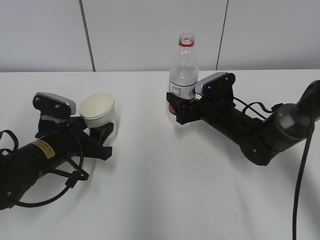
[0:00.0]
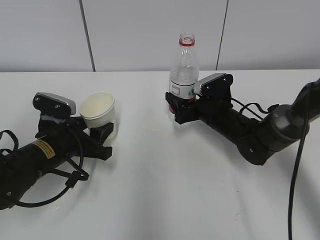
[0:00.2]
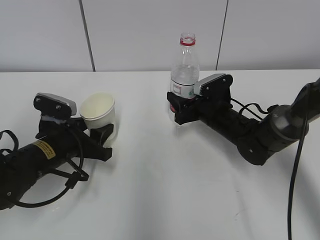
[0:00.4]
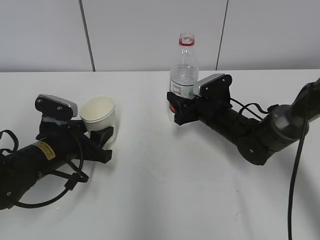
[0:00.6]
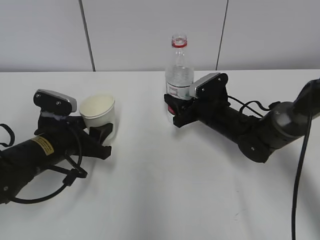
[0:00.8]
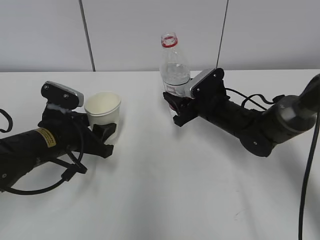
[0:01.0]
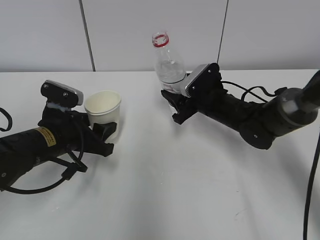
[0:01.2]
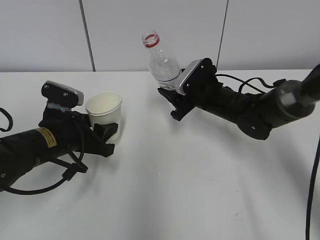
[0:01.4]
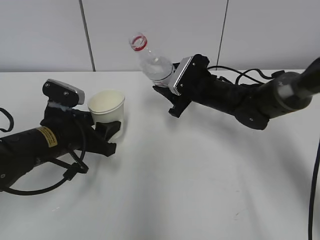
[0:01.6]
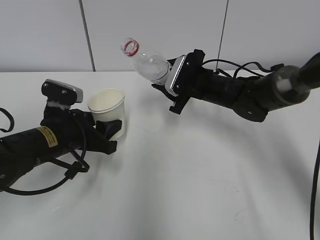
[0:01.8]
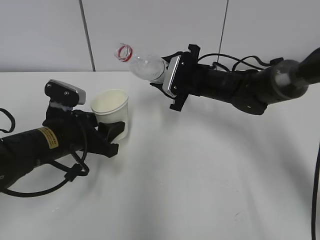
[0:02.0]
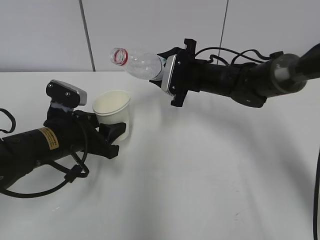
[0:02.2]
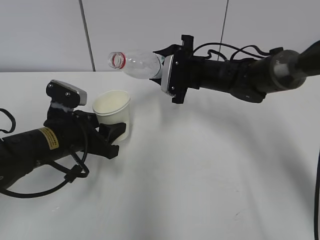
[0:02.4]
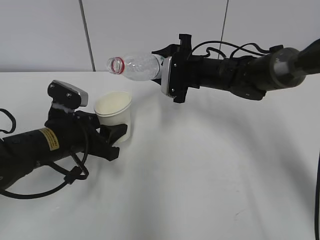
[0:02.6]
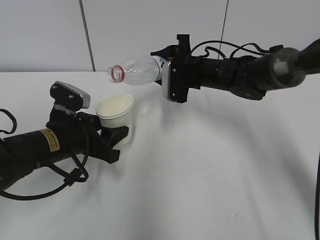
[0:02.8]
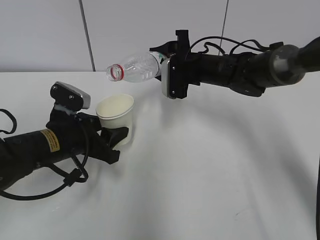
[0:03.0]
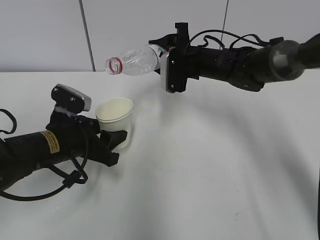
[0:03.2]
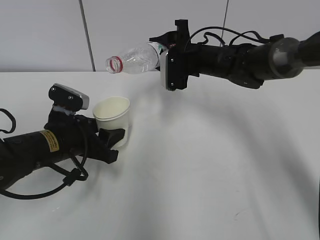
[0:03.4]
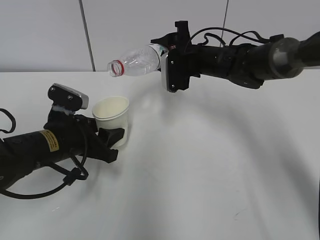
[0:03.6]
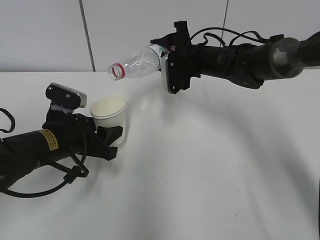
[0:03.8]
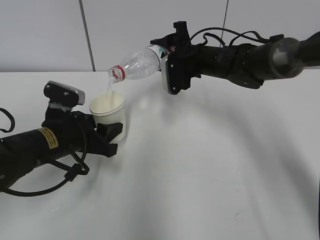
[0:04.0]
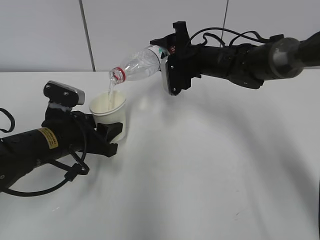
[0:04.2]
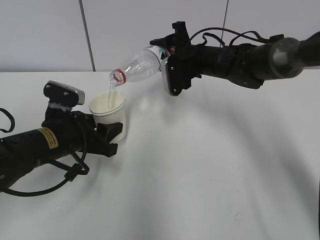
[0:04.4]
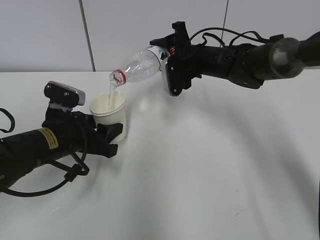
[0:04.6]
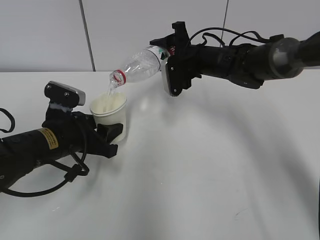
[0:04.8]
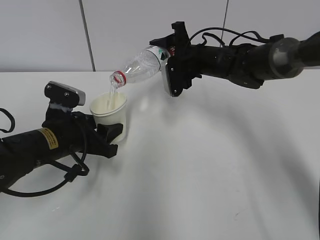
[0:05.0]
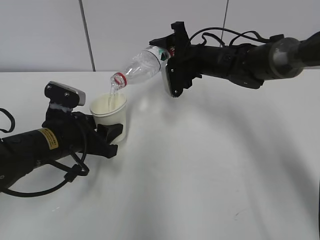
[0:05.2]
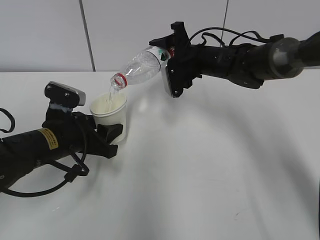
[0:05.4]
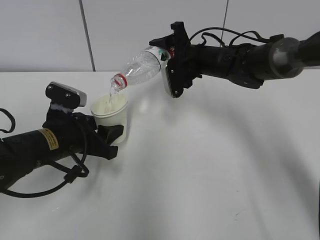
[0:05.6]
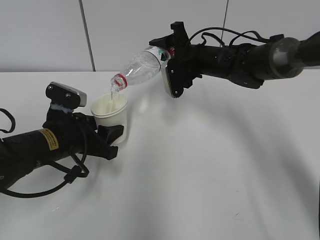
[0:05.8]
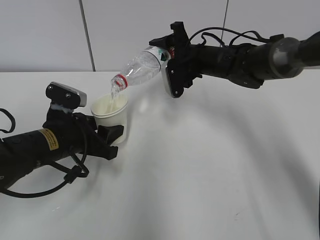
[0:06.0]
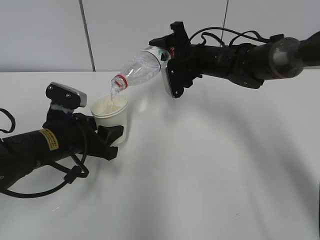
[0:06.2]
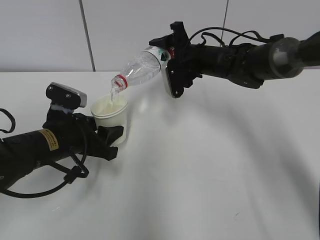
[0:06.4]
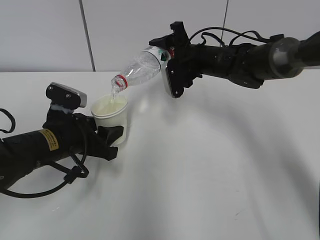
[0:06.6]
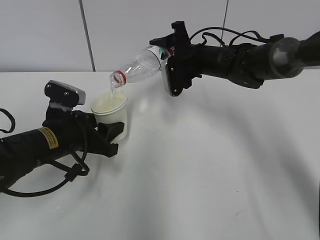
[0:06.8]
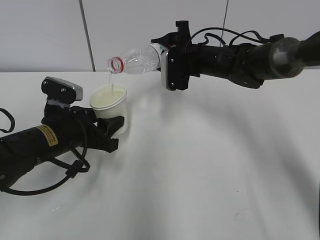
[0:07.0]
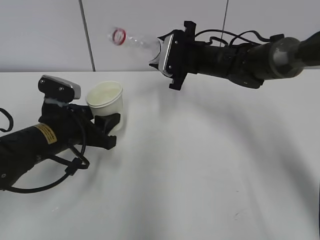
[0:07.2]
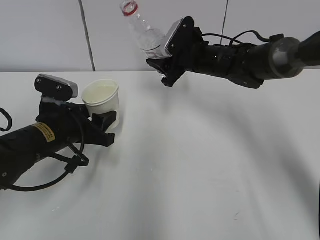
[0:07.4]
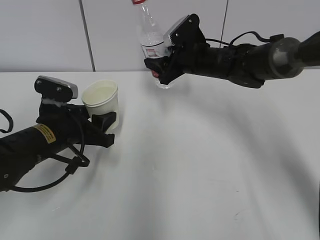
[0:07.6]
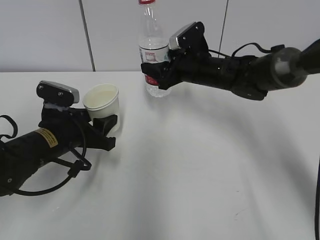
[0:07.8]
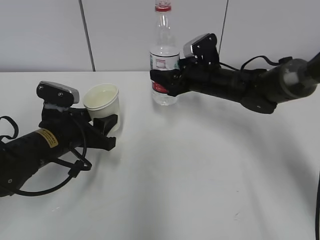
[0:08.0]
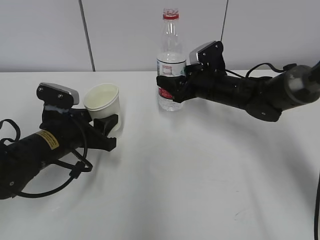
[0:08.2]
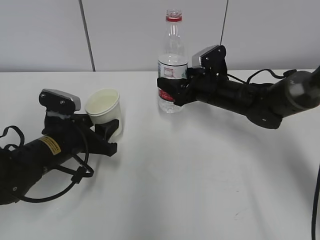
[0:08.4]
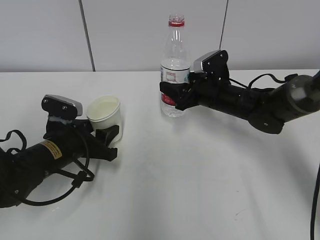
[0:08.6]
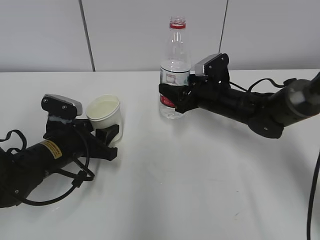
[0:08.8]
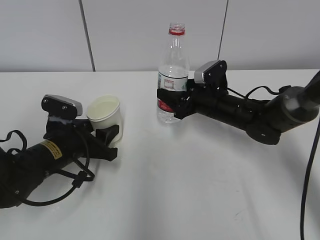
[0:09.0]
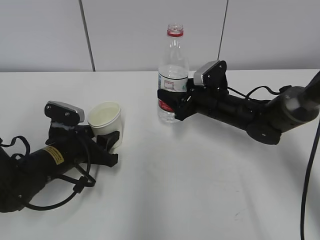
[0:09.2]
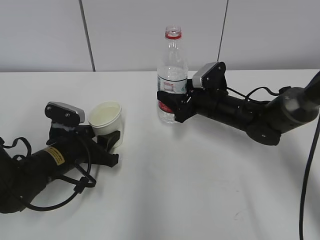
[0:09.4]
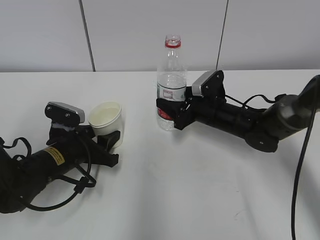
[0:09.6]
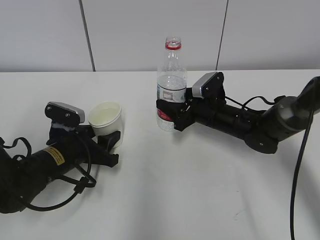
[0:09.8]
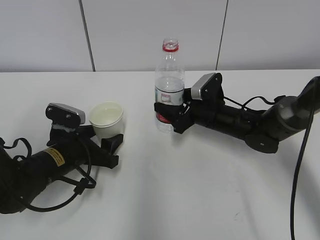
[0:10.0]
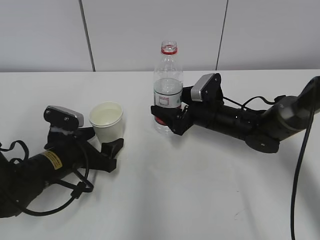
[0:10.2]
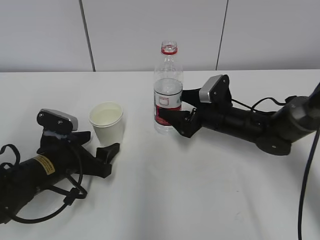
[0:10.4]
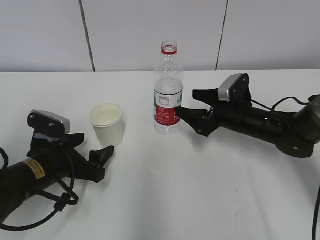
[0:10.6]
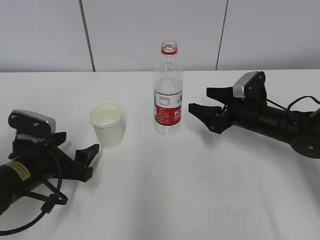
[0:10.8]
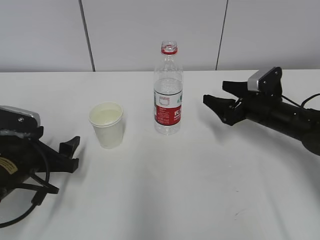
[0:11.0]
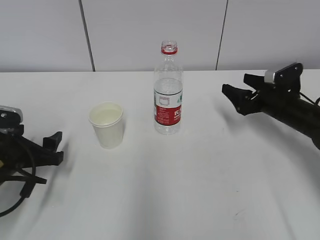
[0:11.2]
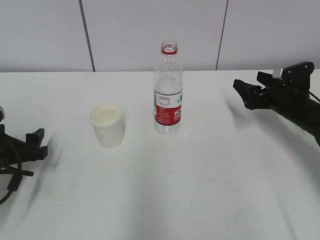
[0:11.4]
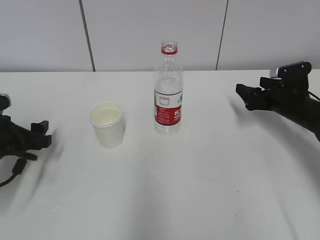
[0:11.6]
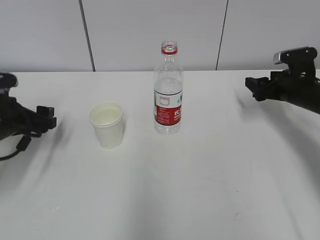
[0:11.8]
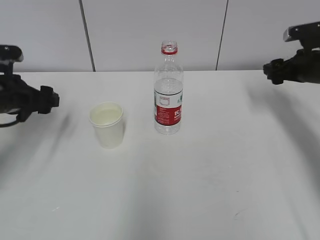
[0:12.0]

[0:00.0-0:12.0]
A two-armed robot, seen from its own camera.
Step, 0:00.0 to 0:01.8: Lift the paper cup with the left hand.
Step, 0:02.0 to 0:04.4: Fill water with the left hand.
Step, 0:02.0 to 0:04.4: Pour water with the right hand.
Step, 0:05.2 to 0:06.8: Place the paper cup with the left hand.
0:00.0 to 0:01.6: The right gripper shifts by roughly 5 cm, and closes its fingers.
0:01.6 to 0:03.0: The right gripper ends up about 5 cm from where it was.
0:03.0 to 0:06.0: The grippers move only a little.
0:07.6 to 0:09.0: The right gripper moves downward and backward, approximately 10 cm.
0:09.0 to 0:10.4: The left gripper opens up, while the right gripper opens its fingers.
0:10.4 to 0:12.0: The right gripper moves to the right and upward, about 20 cm. Meanwhile the left gripper travels upward, to the left and forward by approximately 15 cm.

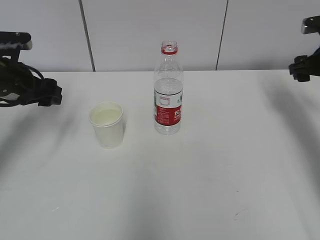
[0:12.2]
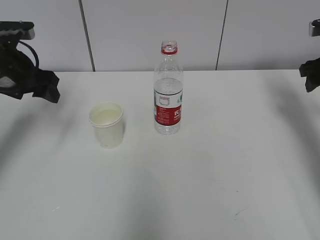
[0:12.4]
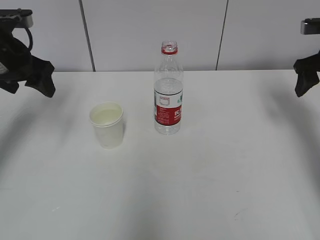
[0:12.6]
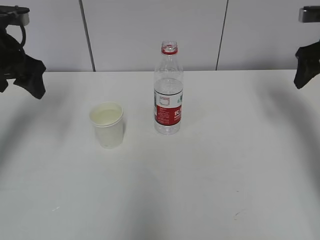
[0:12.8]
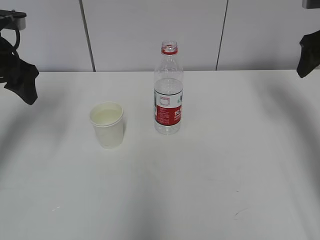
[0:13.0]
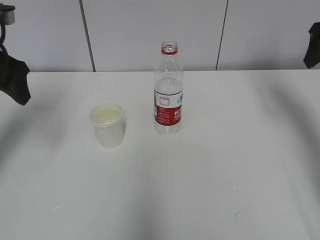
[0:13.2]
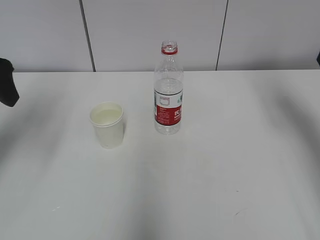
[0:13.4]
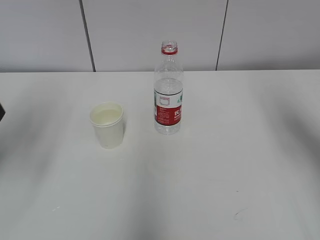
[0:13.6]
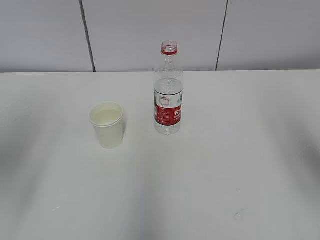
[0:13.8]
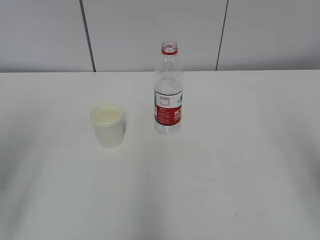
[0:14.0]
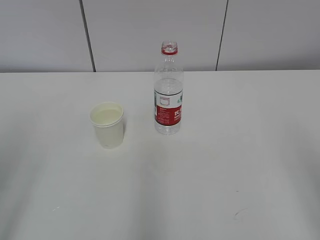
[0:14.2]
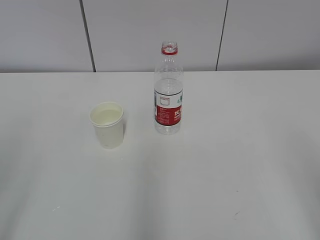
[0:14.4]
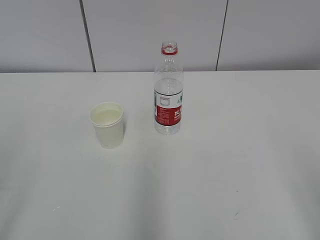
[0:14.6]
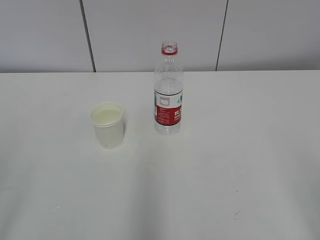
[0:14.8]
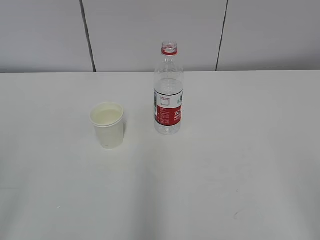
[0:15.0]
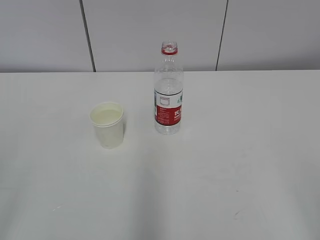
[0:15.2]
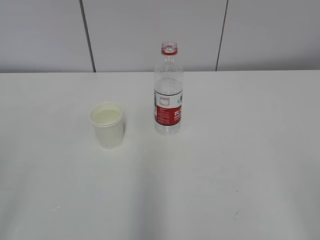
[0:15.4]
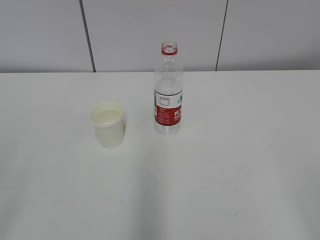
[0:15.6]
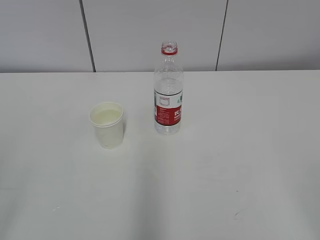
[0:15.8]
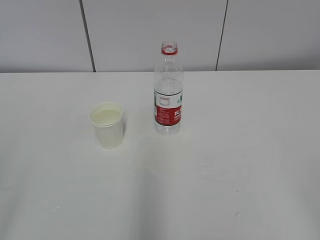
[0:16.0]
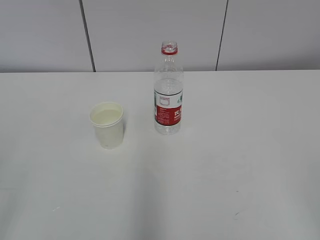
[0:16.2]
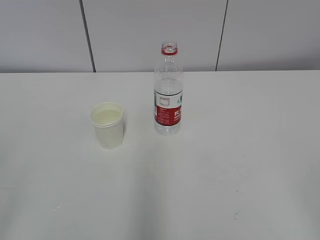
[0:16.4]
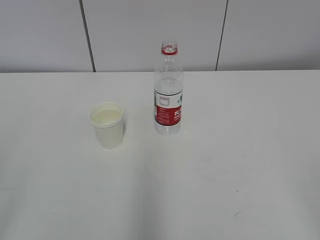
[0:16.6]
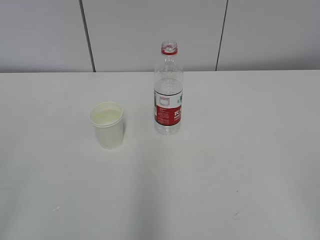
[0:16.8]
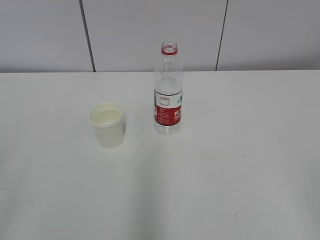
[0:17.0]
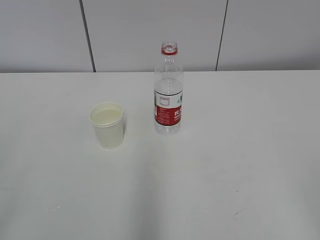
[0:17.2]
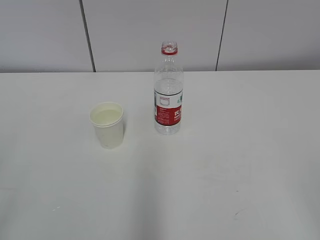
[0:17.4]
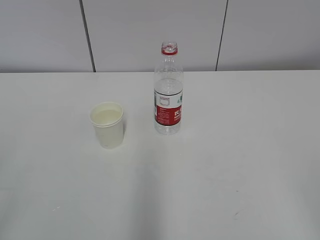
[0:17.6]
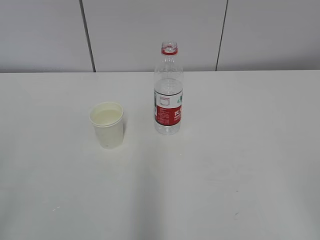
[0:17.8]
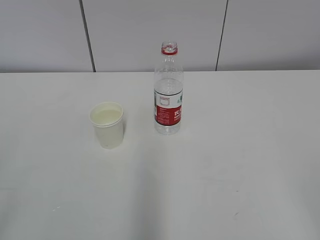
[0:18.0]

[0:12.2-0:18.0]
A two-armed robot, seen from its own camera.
0:12.2 to 0:13.6: Both grippers travel together backward and upward, about 20 cm.
0:13.6 to 0:15.0: The two grippers go approximately 25 cm backward.
0:16.6 to 0:18.0: The two grippers keep their place.

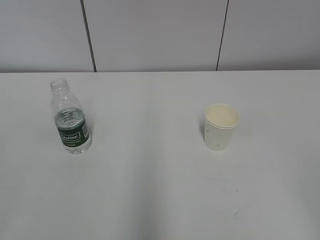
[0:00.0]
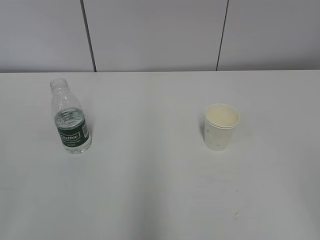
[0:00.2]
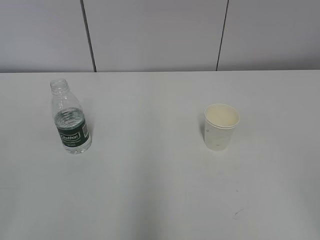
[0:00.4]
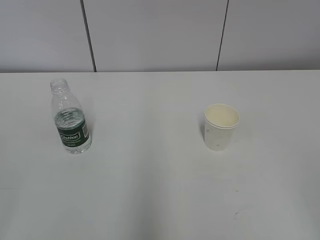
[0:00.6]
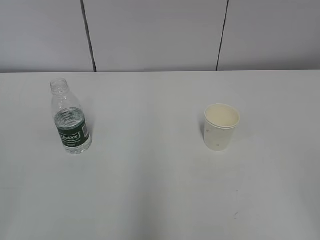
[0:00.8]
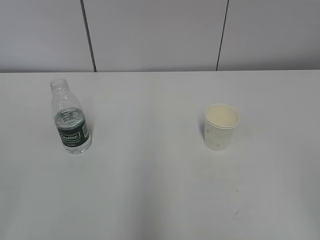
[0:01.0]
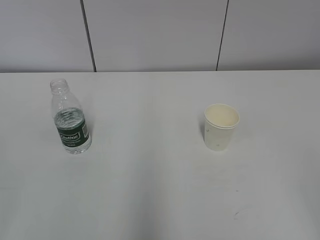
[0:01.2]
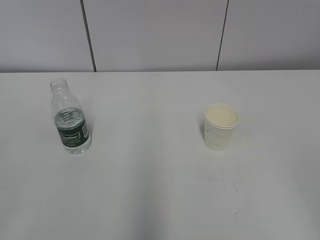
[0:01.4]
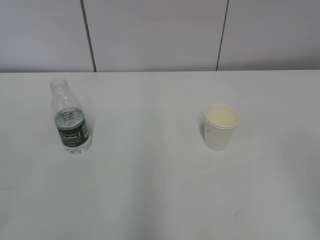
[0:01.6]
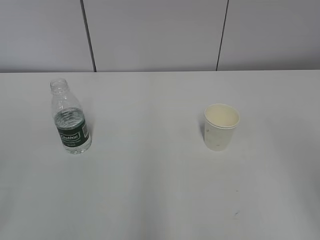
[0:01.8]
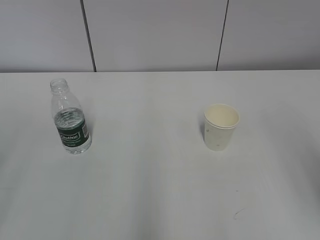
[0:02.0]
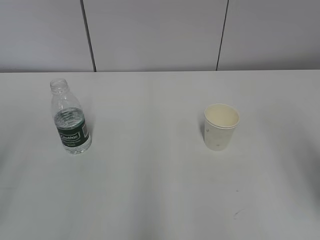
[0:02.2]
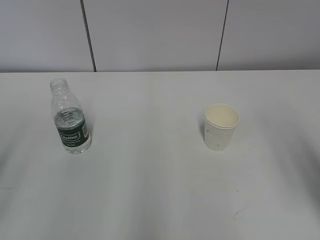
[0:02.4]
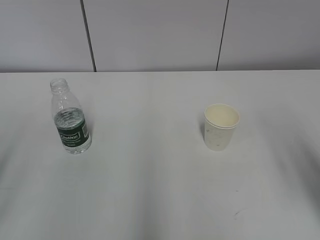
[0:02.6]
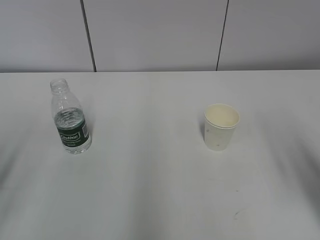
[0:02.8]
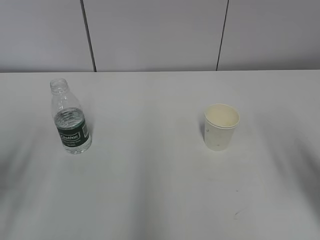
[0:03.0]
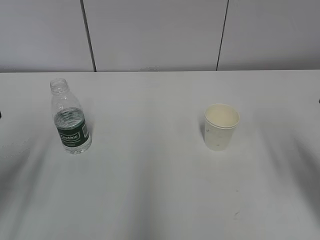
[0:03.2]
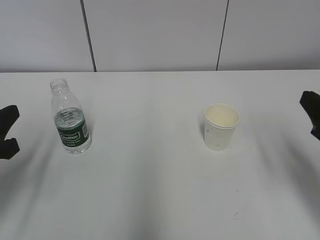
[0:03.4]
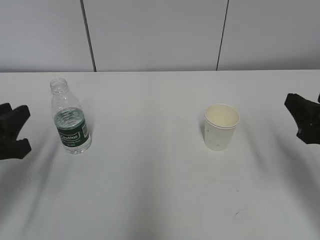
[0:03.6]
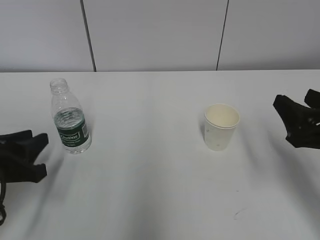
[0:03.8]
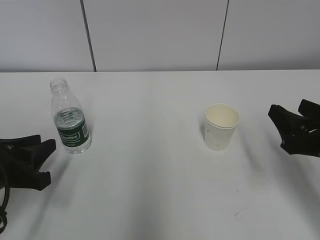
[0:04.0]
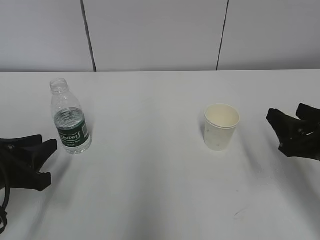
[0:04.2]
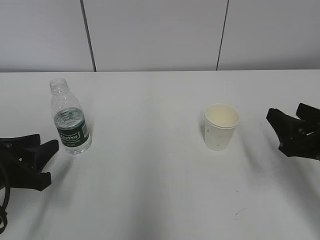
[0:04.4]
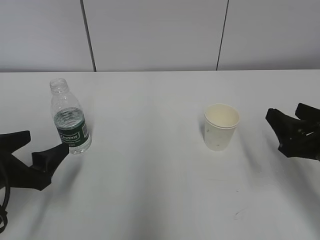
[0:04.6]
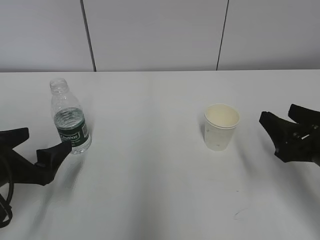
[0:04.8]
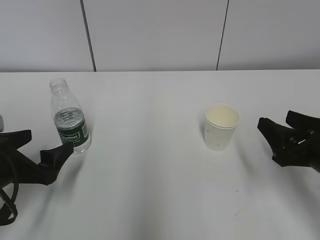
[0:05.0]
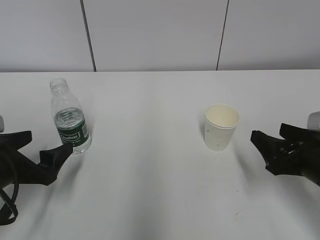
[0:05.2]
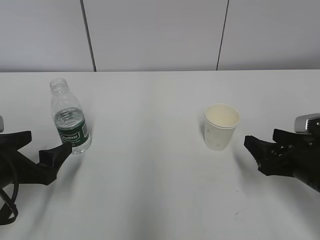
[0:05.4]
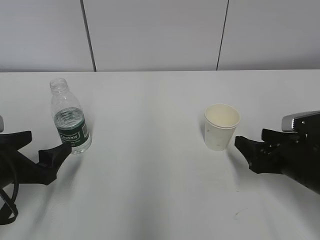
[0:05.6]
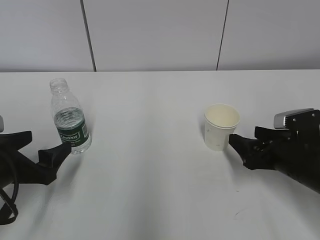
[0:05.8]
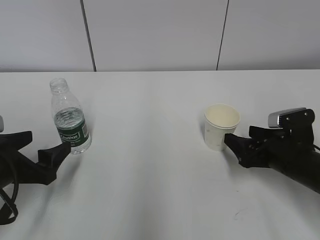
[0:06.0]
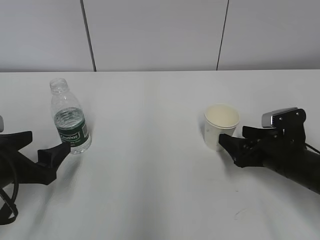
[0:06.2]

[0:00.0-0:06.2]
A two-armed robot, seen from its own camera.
0:01.6 to 0:03.2: The two grippers go approximately 20 cm forward and downward.
0:03.2 to 0:04.6: Both grippers travel together downward, roughly 5 cm. The left gripper opens up.
0:04.6 to 0:06.2: The right gripper goes roughly 10 cm downward and forward, and opens its fingers.
